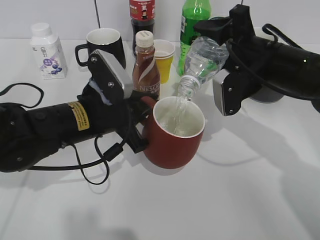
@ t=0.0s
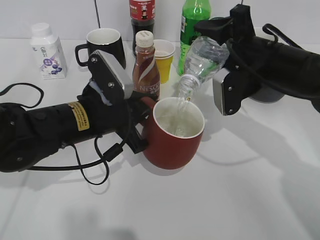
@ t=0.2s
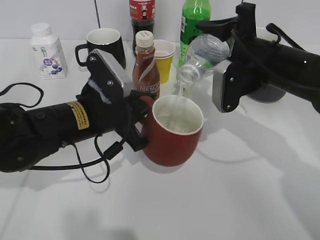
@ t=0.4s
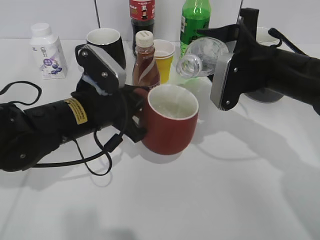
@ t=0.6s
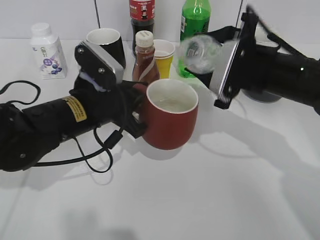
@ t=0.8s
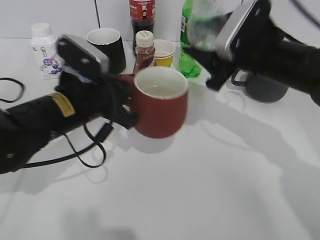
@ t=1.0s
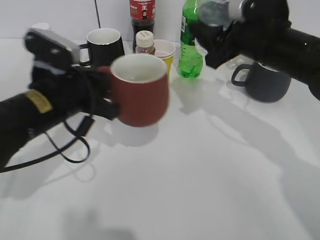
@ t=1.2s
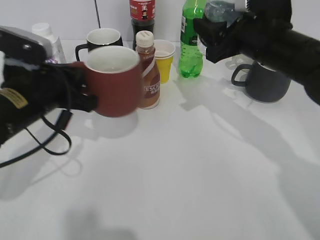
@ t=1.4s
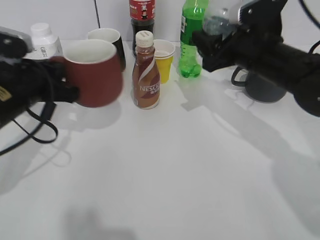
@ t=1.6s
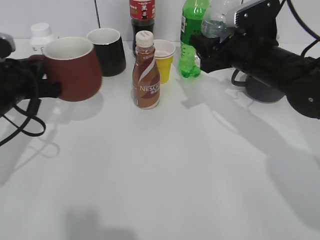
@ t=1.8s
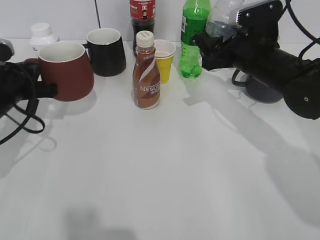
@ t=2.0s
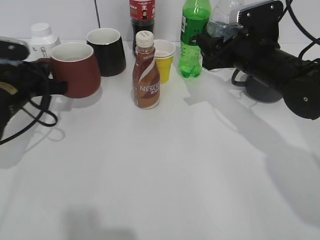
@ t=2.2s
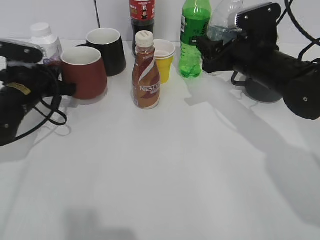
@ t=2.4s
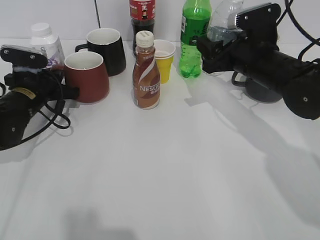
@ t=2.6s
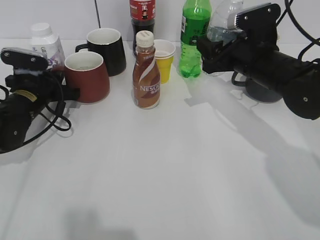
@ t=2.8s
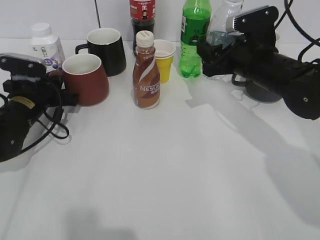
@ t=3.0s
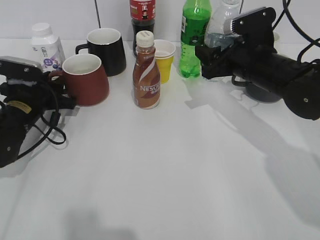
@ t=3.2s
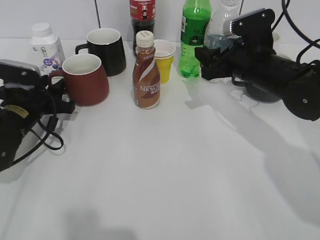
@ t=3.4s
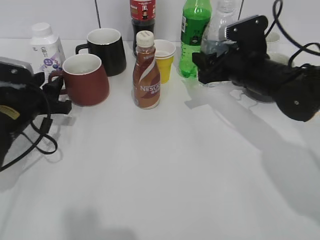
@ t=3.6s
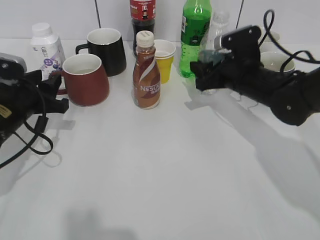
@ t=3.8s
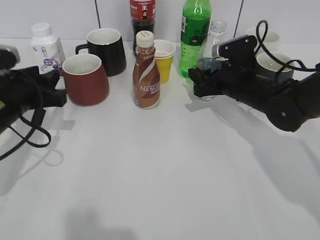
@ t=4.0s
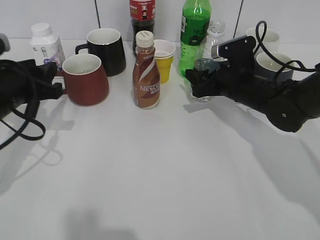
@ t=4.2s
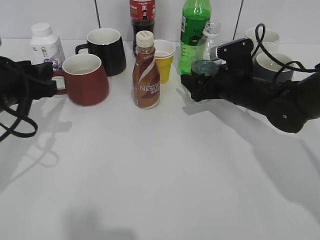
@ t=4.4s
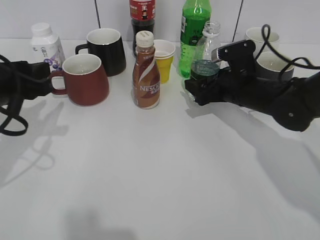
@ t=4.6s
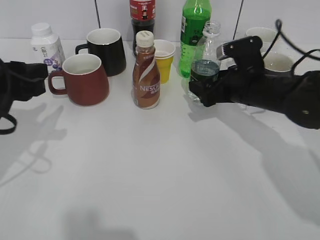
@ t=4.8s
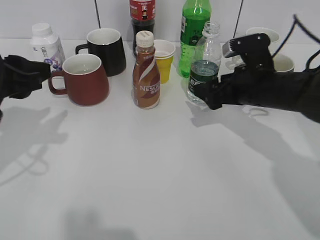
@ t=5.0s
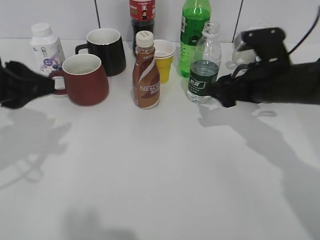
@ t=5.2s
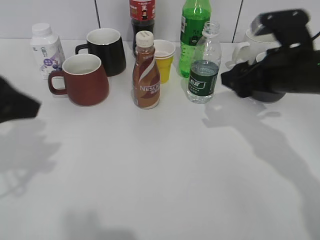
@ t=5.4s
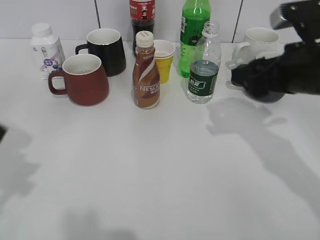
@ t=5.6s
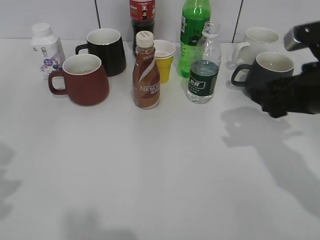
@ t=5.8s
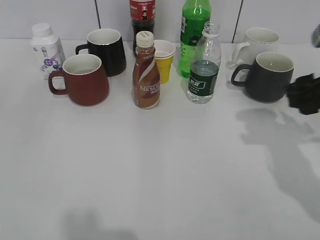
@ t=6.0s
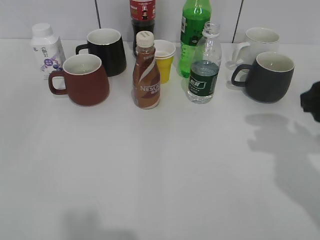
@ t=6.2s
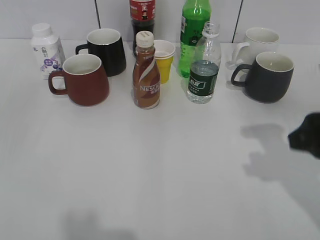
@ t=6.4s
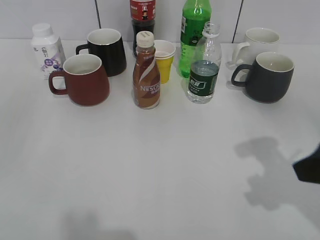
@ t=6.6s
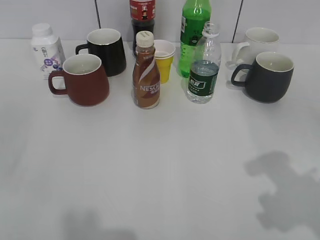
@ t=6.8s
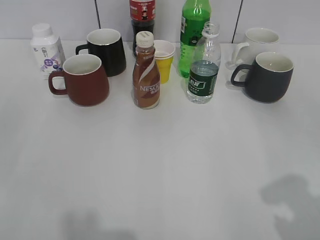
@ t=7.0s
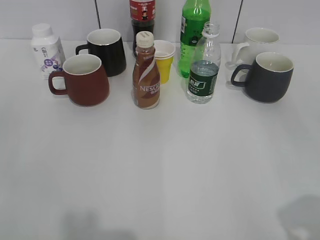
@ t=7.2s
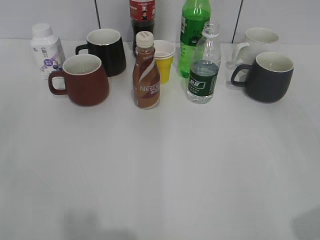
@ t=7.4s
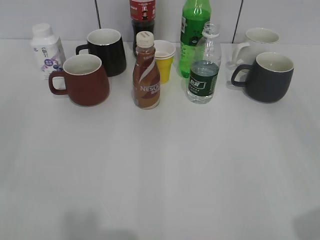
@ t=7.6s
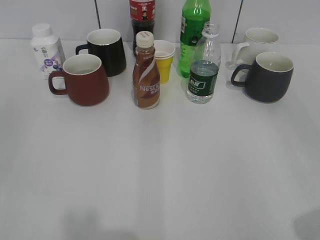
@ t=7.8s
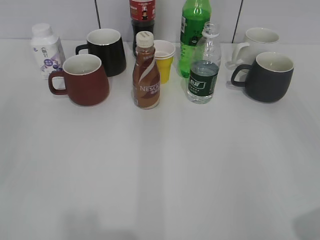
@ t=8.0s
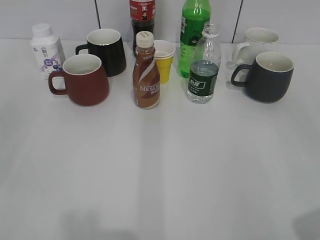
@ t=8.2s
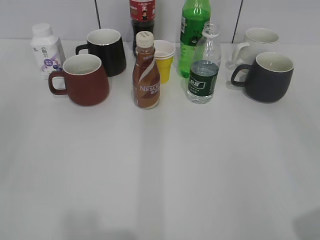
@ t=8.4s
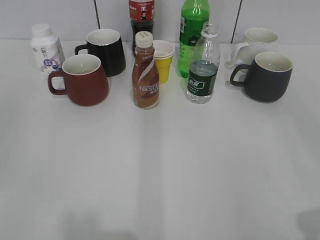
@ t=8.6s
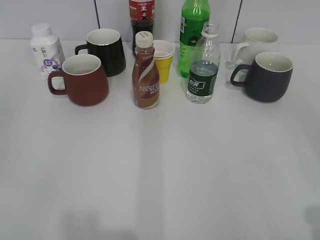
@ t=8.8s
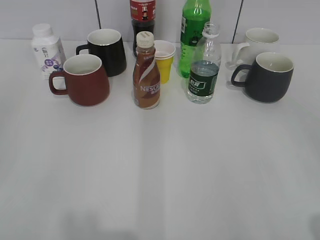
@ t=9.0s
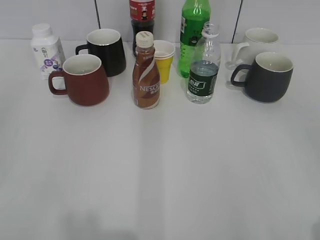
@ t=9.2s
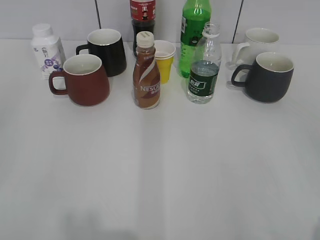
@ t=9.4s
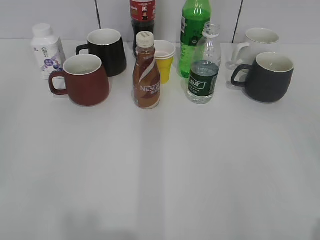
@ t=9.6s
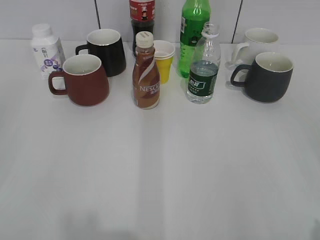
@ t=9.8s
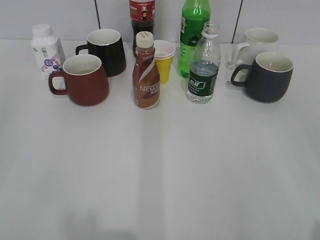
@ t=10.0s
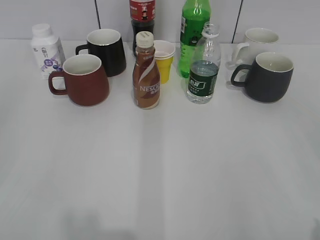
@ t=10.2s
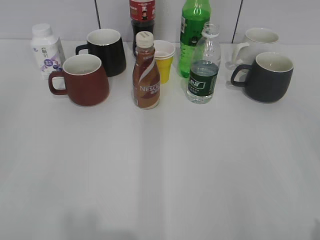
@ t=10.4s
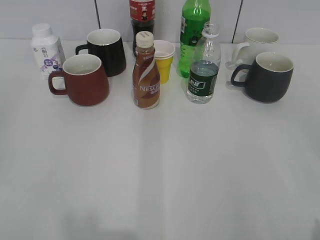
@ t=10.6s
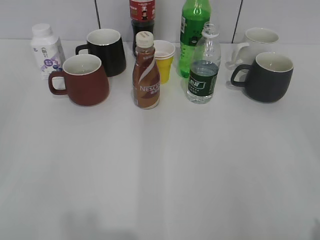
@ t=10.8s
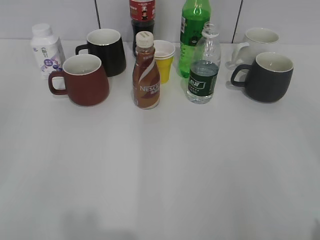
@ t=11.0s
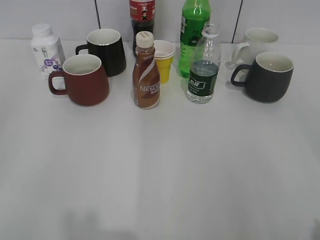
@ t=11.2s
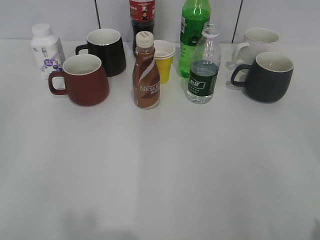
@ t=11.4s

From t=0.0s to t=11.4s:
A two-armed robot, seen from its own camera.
Step, from t=0.8s to t=3.4s: Place the red cup on the table with left gripper.
Step, from t=3.8s to t=5.0s: Place the water bottle on the table with right gripper.
From t=0.0s to t=1.4s: The left gripper shifts roughly 5 cm to the left.
From t=1.4s to t=2.8s: The left gripper travels forward, downward and to the left by about 15 cm; the right gripper moves about 5 cm.
From t=2.8s to t=4.2s: The right gripper travels downward by roughly 5 cm. The left gripper heads backward and upward, covering some 10 cm, and opens its fingers.
From t=4.2s to t=5.6s: The right gripper goes approximately 15 cm upward and backward, and opens up; the left gripper moves backward and upward, approximately 15 cm.
From t=5.6s to t=7.2s: The left gripper shifts approximately 15 cm backward and to the left; the right gripper shifts approximately 25 cm backward.
From t=7.2s to t=8.6s: The grippers move only a little.
From t=10.0s to t=11.4s: Both grippers stay put.
